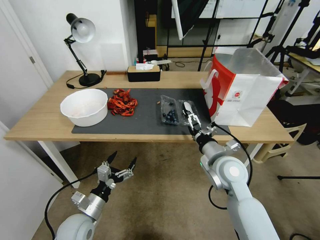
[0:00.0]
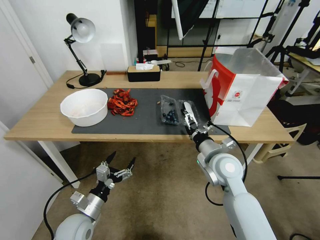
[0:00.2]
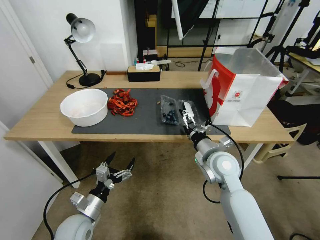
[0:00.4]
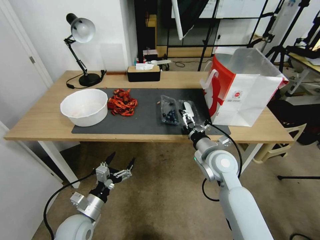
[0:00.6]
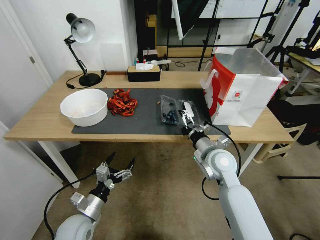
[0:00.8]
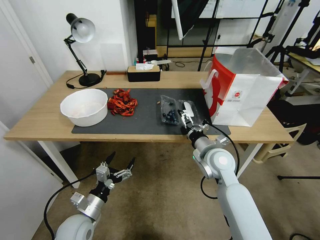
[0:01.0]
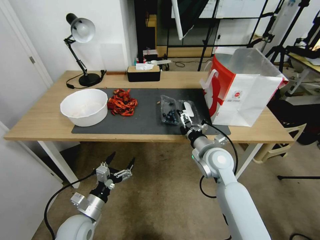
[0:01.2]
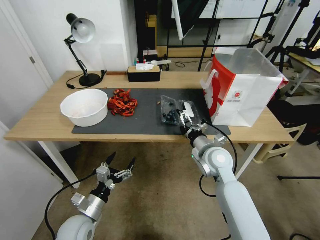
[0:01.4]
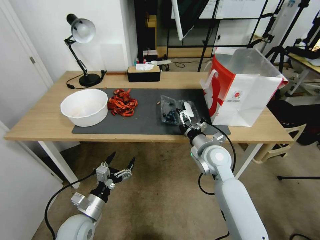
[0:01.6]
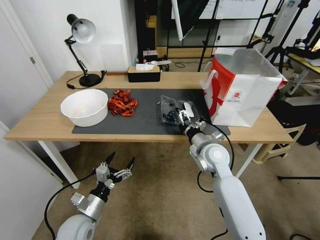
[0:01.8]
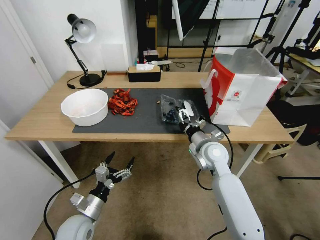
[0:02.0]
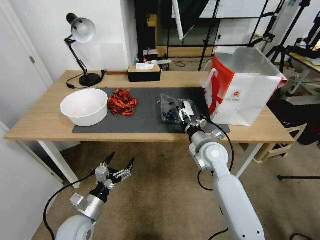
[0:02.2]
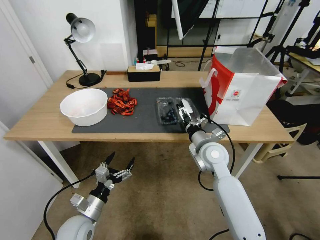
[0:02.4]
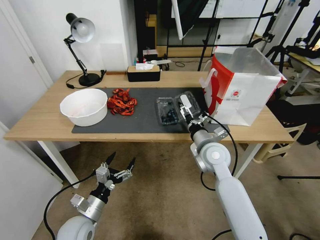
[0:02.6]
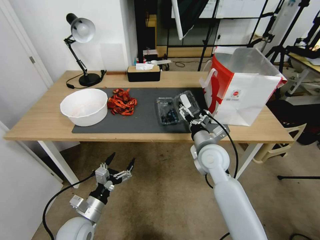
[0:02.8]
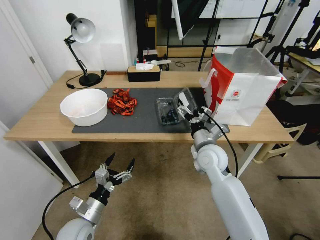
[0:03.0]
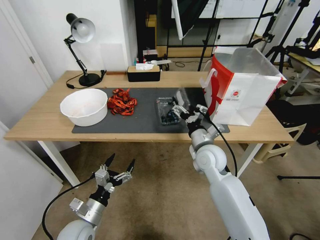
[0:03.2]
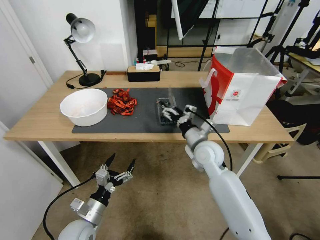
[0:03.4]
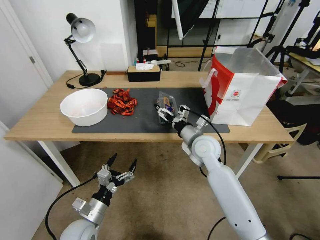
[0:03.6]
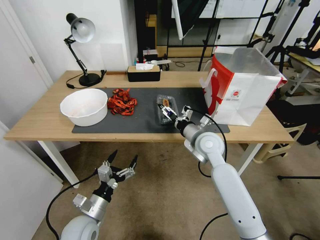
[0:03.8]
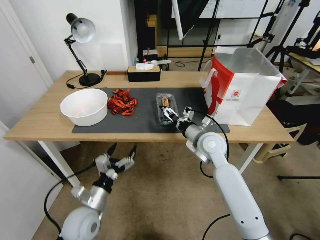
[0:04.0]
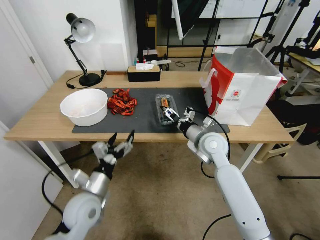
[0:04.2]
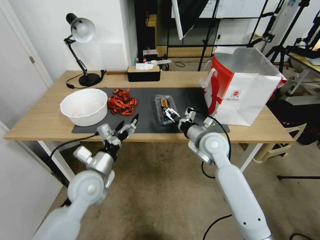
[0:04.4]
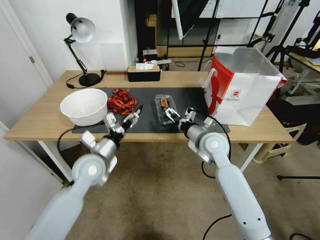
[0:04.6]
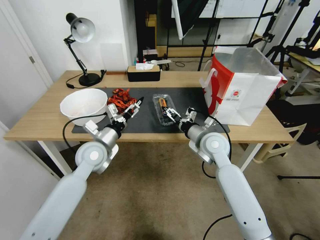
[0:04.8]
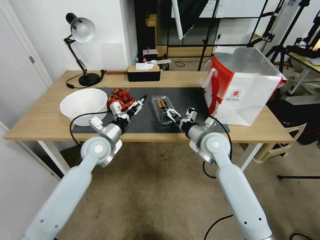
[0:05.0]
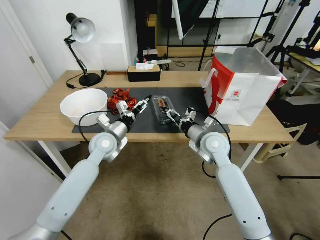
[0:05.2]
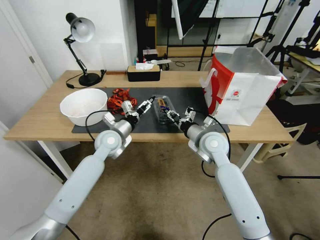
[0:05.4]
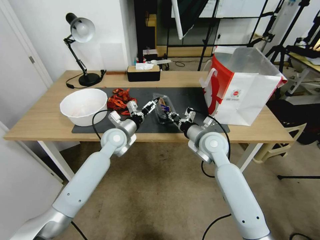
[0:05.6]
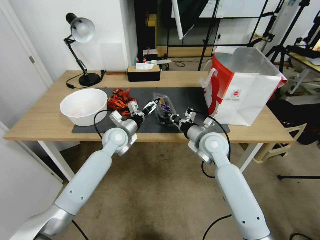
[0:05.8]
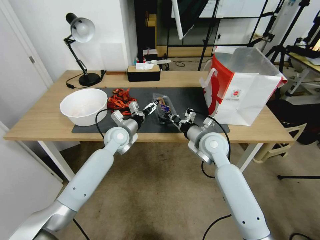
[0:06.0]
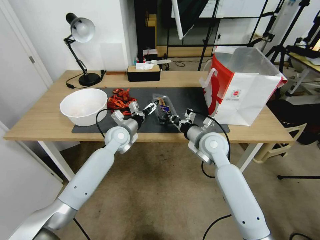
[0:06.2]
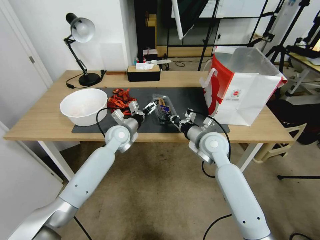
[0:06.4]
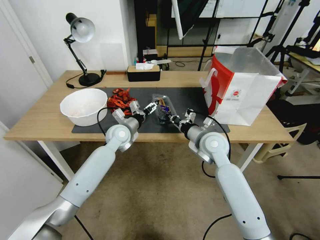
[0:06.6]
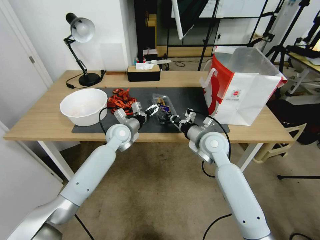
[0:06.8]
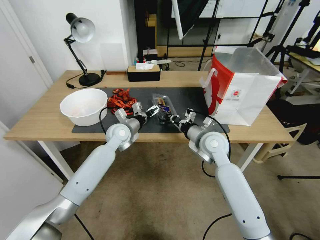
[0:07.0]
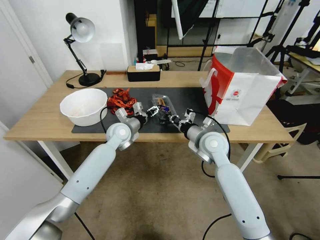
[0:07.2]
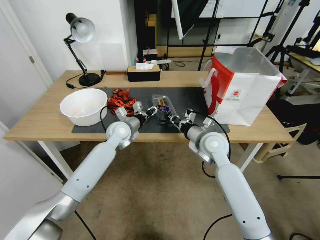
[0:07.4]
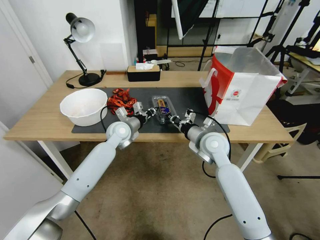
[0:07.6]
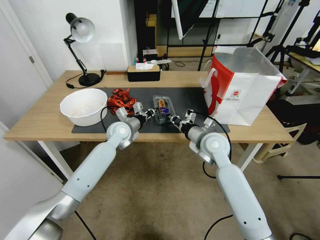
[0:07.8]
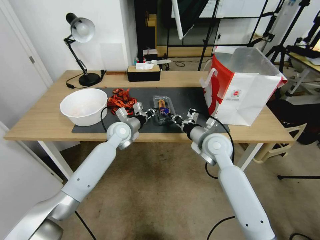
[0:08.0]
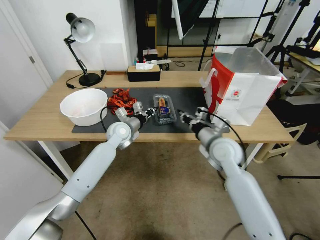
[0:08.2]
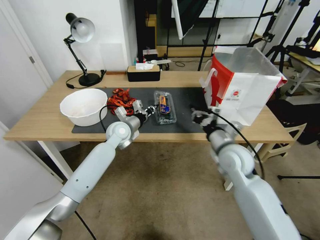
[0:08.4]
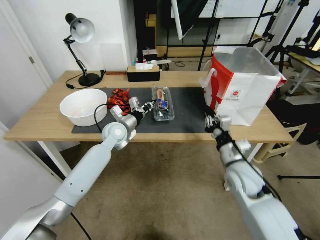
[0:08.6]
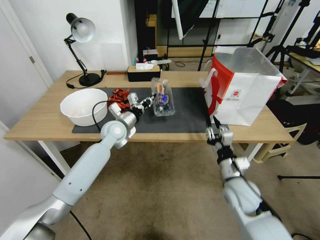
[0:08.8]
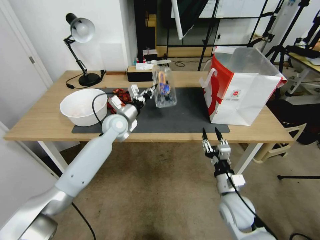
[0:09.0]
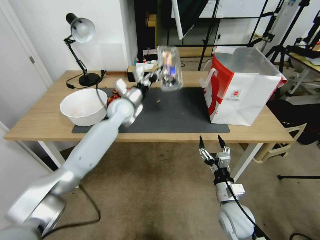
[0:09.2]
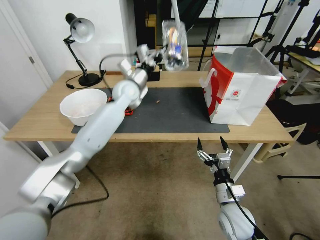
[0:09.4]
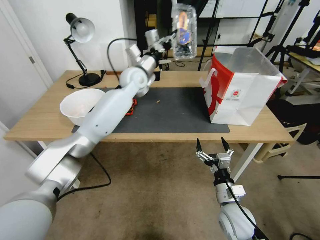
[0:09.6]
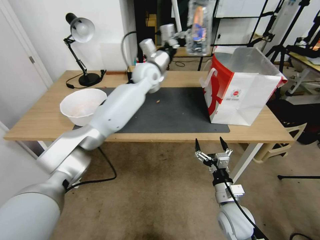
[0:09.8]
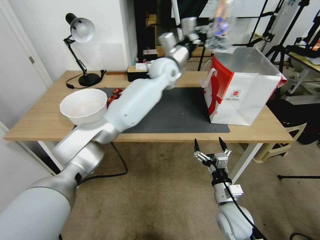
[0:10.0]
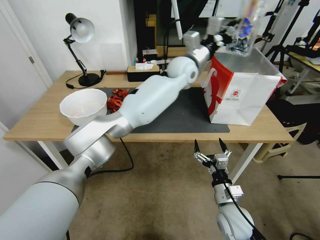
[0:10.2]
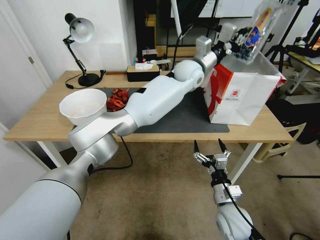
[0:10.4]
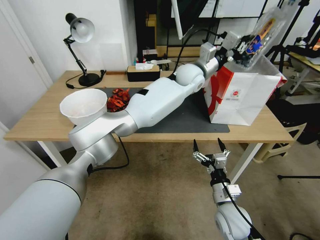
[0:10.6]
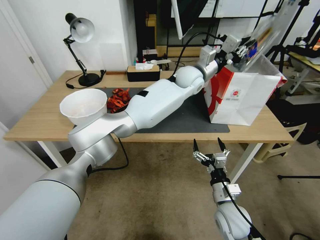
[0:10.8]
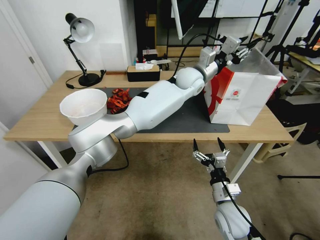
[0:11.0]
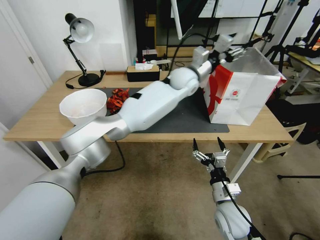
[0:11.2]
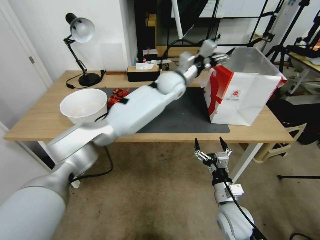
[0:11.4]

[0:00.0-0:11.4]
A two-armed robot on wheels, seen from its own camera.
Task of the whole recording: Close the takeout container lid, then place the container into the takeout bag.
0:00.0 to 0:01.4: The right gripper shifts some 5 cm forward.
0:02.8 to 0:04.2: The left gripper shifts some 10 cm upward and forward.
0:04.2 to 0:05.6: The left gripper is displaced forward by some 20 cm. Meanwhile the right gripper closes its fingers.
0:05.6 to 0:07.2: The grippers make only small movements.
0:07.2 to 0:08.6: The left gripper closes. The right gripper goes about 10 cm backward and to the right.
0:08.6 to 0:10.0: The left gripper moves upward, to the right and forward, roughly 30 cm, while the right gripper heads downward and backward, covering about 15 cm, and opens.
0:10.0 to 0:11.4: The left gripper moves to the right, about 5 cm, and opens its fingers.

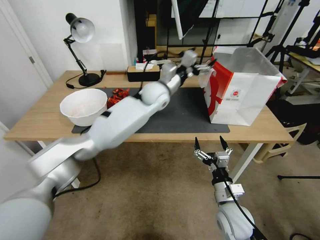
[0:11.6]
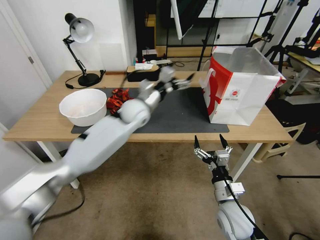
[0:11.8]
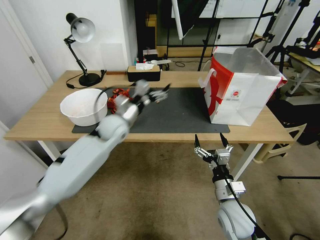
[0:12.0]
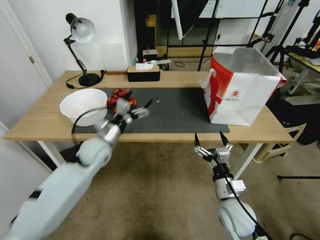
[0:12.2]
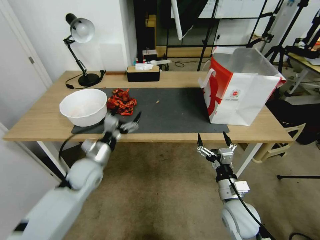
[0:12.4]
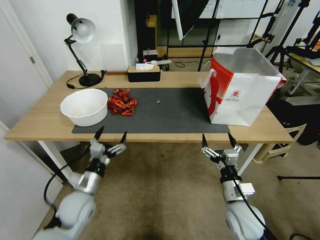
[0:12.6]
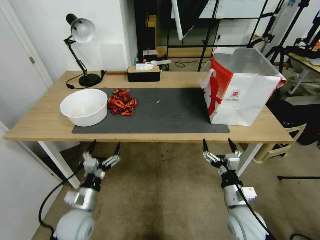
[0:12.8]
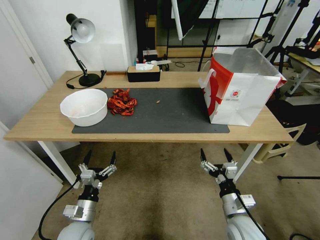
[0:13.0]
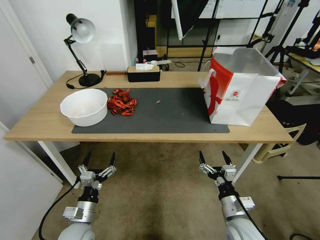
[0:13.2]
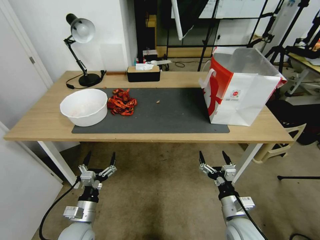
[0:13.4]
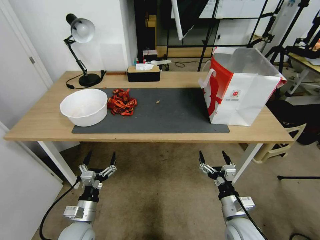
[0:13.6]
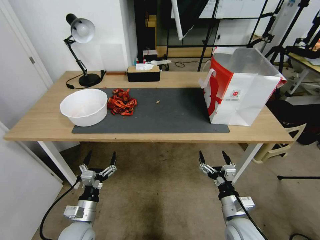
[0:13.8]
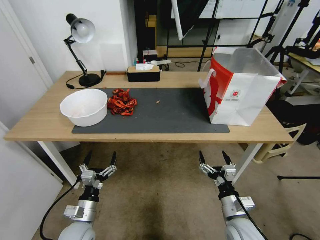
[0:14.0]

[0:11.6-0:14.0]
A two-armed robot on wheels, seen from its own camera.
Task of the whole recording: Close the takeout container lid, then place the container into the takeout bag.
0:11.6 to 0:12.8: The left gripper shifts approximately 50 cm backward, to the left and downward.
0:12.8 to 0:14.0: There are only small adjustments of the grippers.

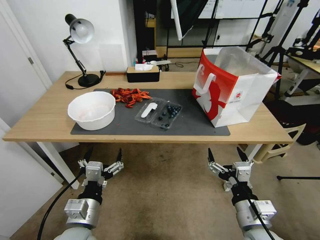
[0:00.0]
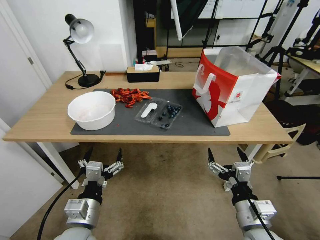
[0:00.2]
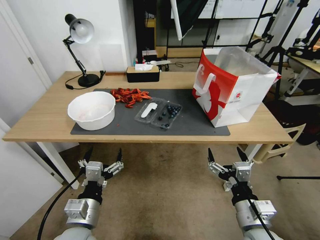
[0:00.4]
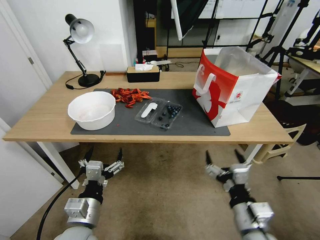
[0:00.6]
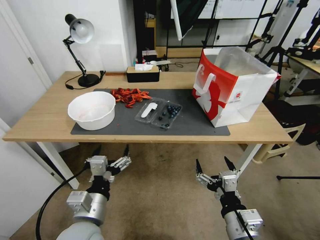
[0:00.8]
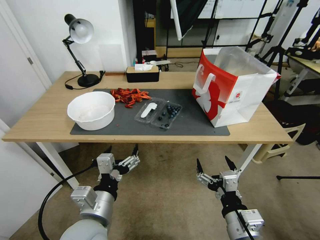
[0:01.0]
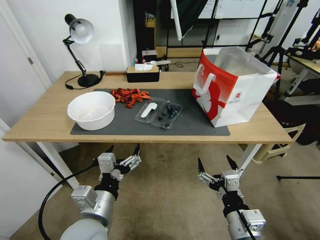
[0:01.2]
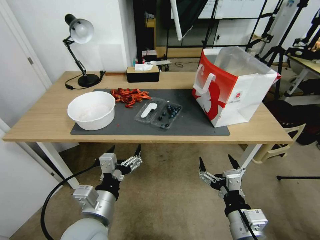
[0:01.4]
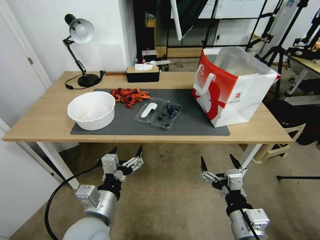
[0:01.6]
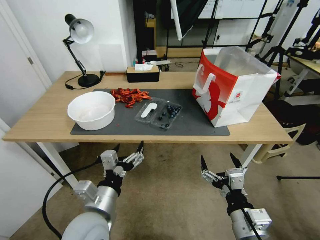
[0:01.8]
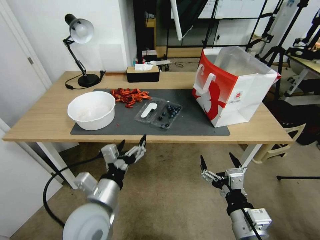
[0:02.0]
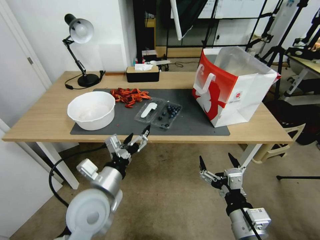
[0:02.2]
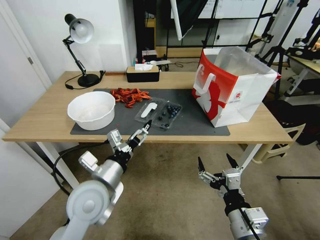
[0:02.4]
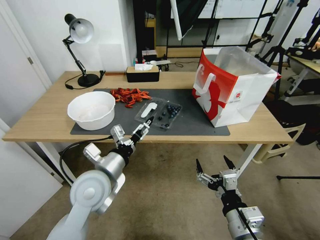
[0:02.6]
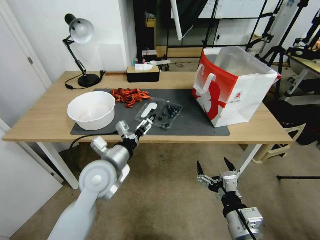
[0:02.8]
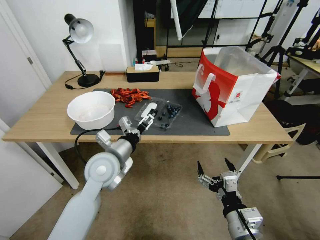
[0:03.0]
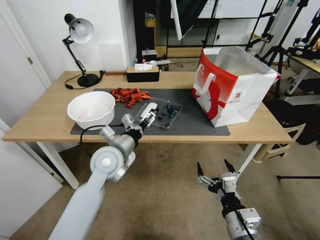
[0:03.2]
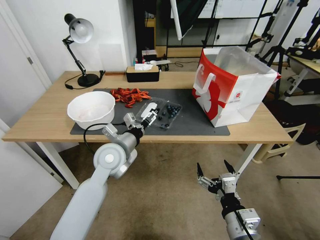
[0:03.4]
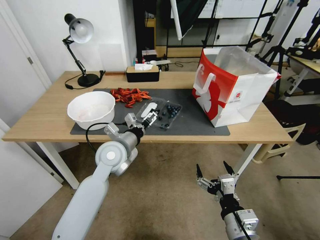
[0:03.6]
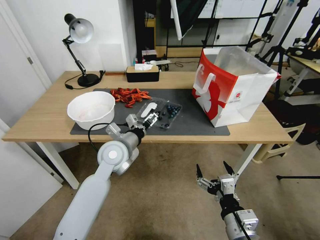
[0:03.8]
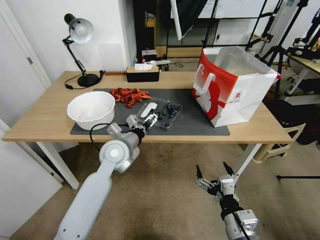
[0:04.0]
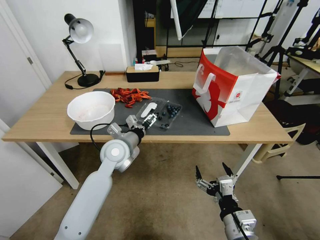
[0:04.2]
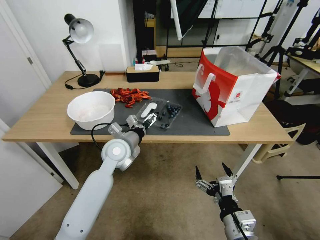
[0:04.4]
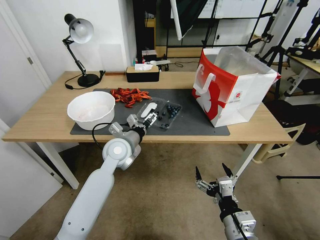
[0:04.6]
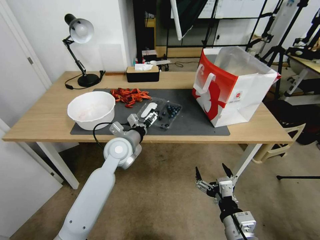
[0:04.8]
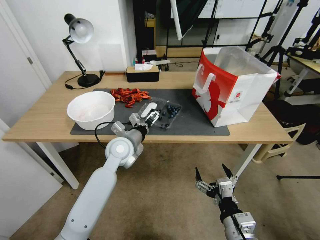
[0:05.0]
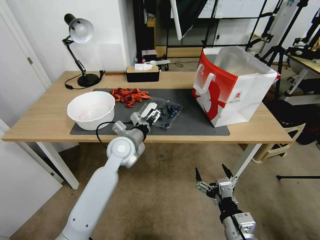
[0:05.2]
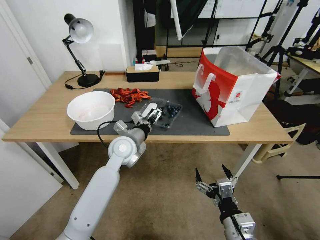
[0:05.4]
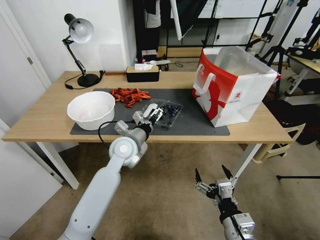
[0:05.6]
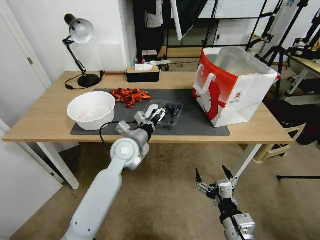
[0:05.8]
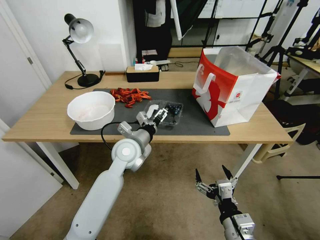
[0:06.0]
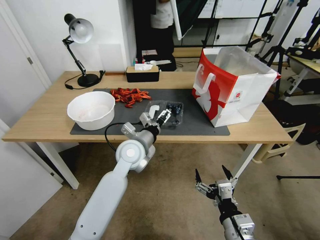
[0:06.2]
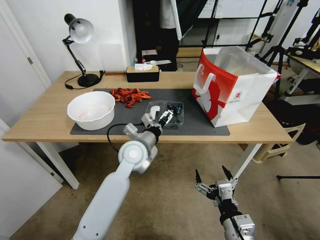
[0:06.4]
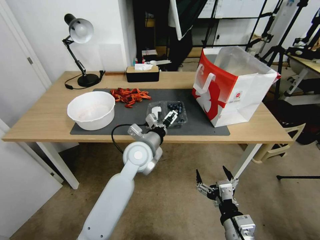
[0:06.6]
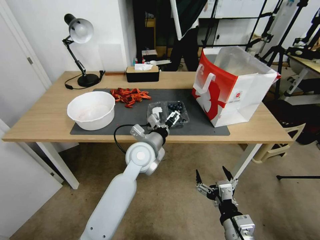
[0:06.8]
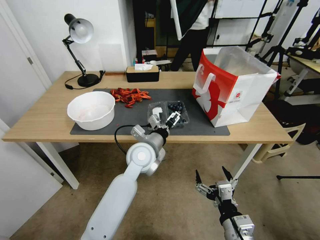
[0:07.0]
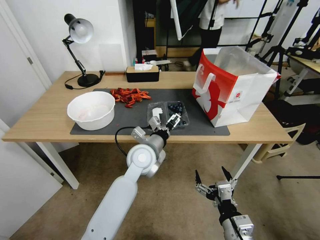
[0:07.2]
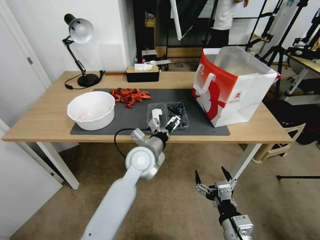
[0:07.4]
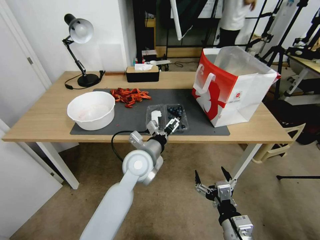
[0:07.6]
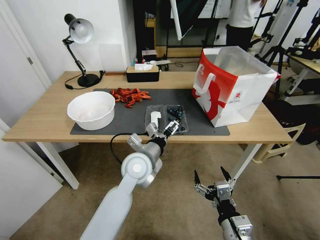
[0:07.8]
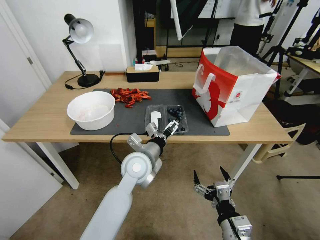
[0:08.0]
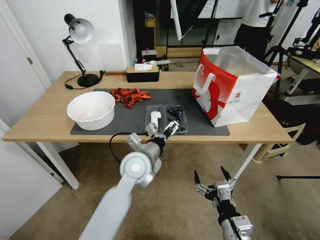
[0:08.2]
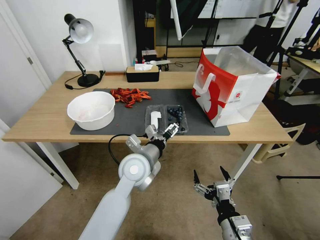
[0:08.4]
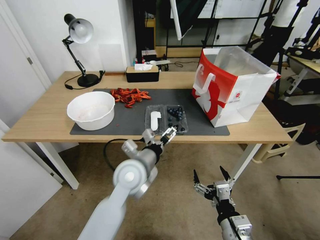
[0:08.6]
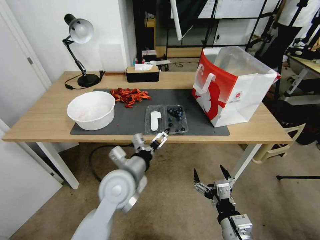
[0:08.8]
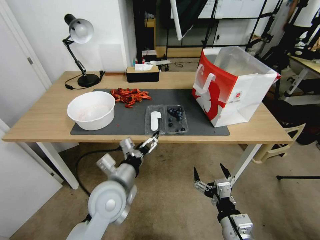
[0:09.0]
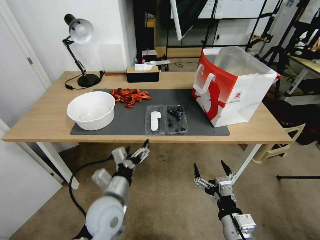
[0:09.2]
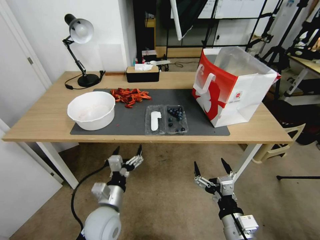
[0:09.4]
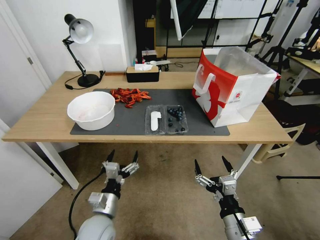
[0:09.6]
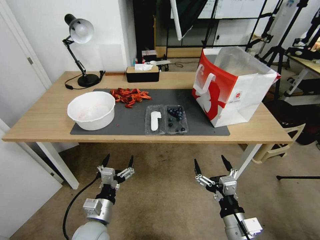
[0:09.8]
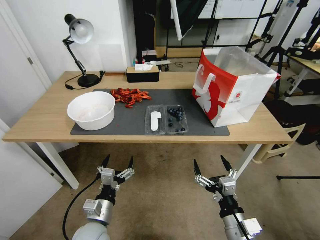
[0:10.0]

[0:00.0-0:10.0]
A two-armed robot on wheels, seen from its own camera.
Task of the whole recording: Close the takeout container lid, then place the container into the takeout bag.
0:01.4 to 0:02.8: The left gripper shifts roughly 15 cm forward.
0:02.8 to 0:04.2: The left gripper goes about 10 cm forward.
0:04.2 to 0:05.8: The grippers move only a little.
0:05.8 to 0:07.2: The left gripper travels to the right by some 5 cm.
0:07.2 to 0:08.6: The left gripper is displaced backward by some 5 cm.
0:08.6 to 0:10.0: The left gripper goes about 20 cm downward, backward and to the left.
